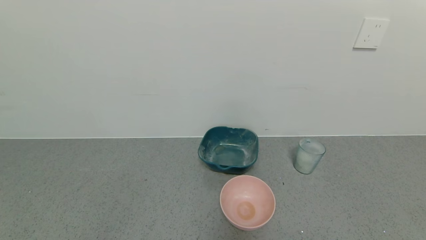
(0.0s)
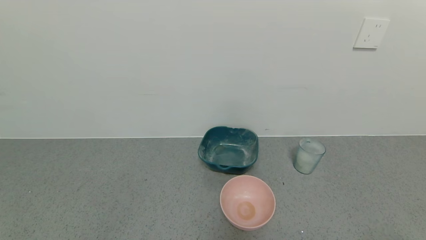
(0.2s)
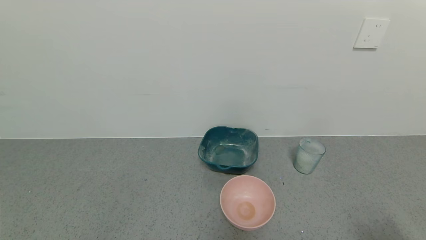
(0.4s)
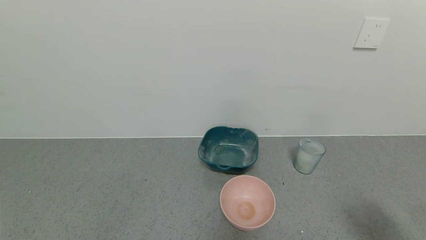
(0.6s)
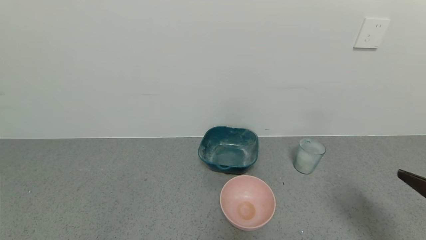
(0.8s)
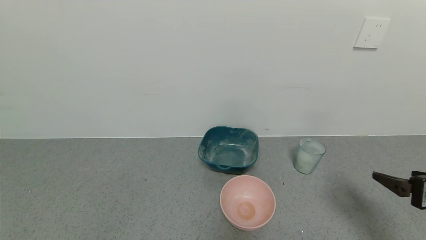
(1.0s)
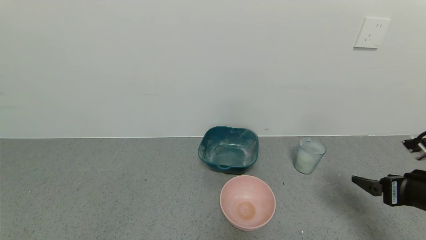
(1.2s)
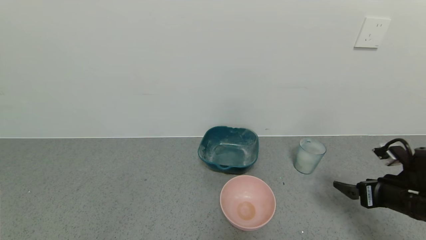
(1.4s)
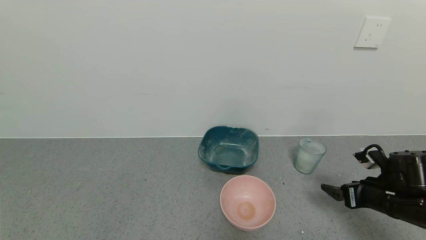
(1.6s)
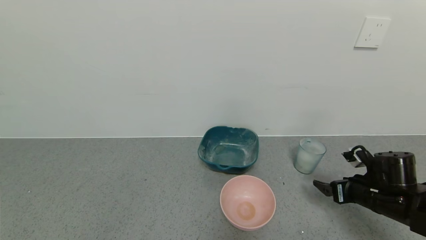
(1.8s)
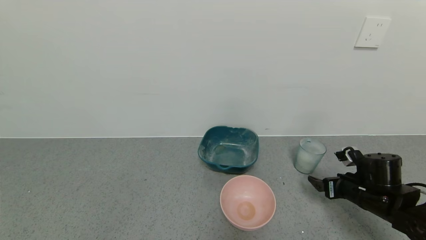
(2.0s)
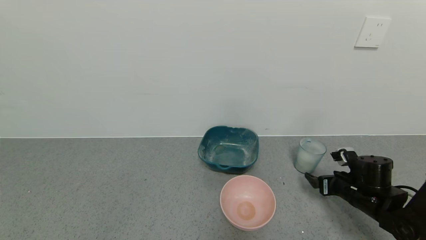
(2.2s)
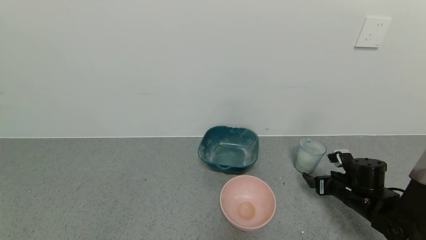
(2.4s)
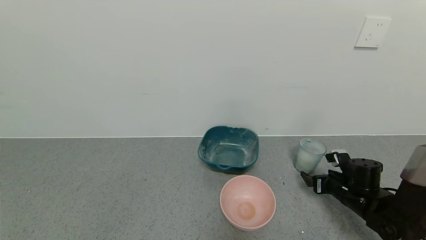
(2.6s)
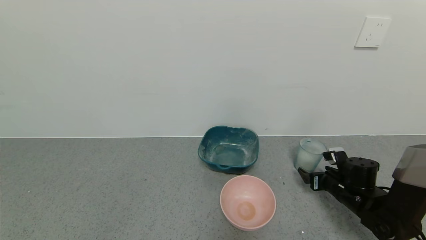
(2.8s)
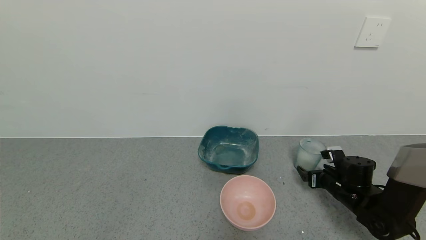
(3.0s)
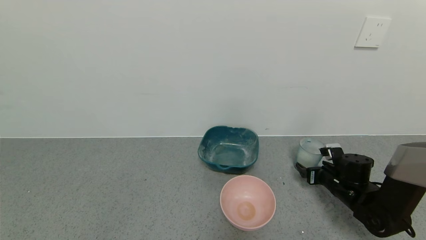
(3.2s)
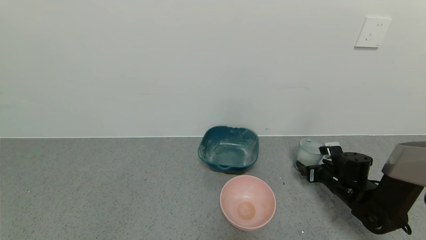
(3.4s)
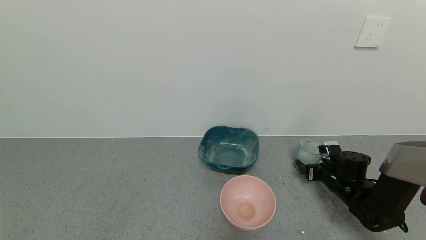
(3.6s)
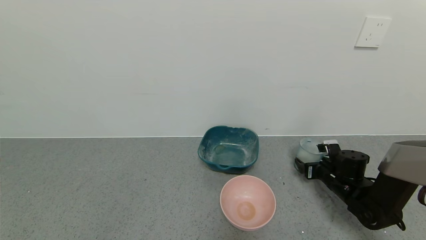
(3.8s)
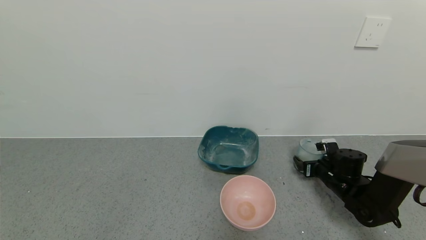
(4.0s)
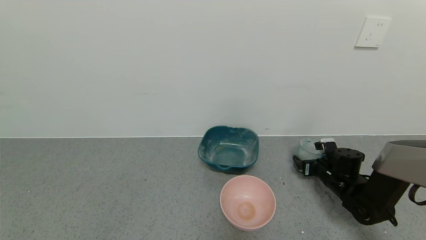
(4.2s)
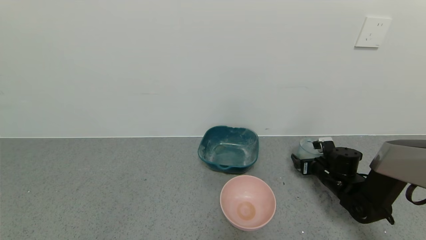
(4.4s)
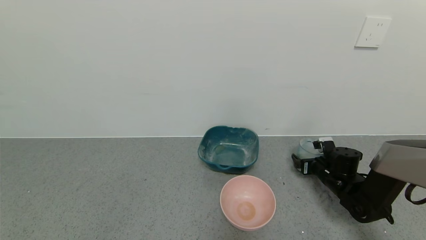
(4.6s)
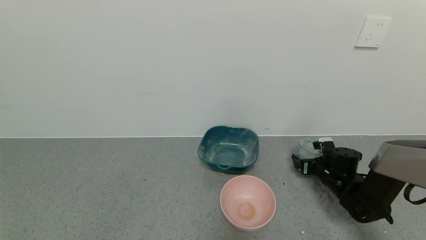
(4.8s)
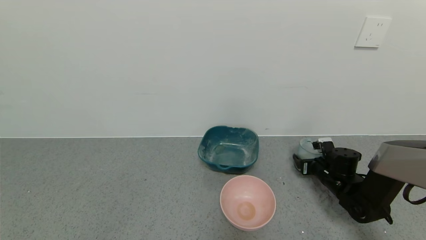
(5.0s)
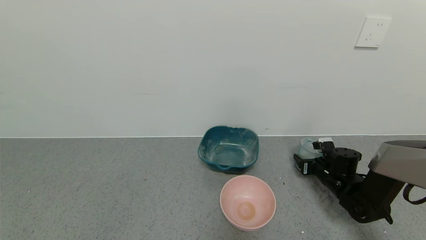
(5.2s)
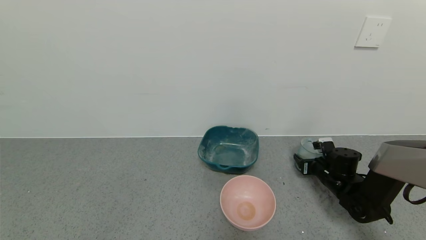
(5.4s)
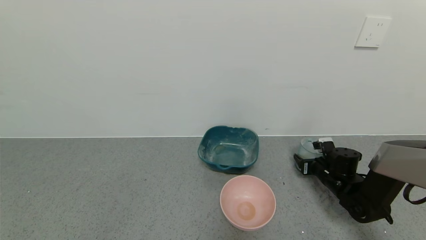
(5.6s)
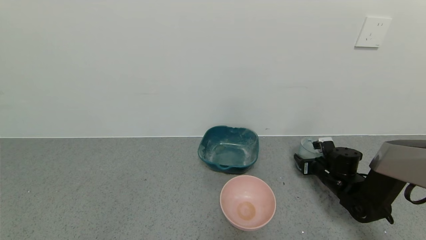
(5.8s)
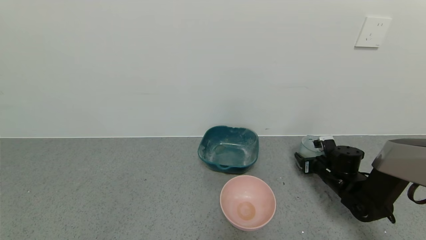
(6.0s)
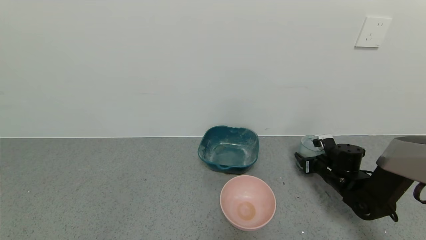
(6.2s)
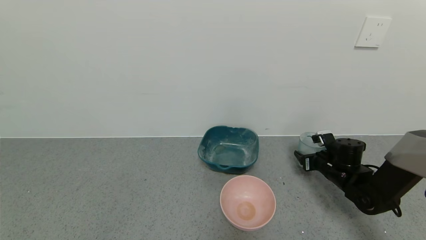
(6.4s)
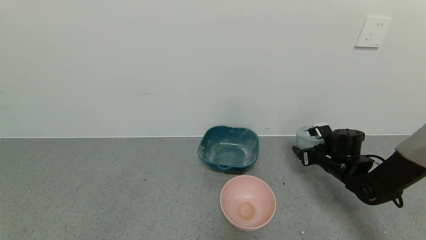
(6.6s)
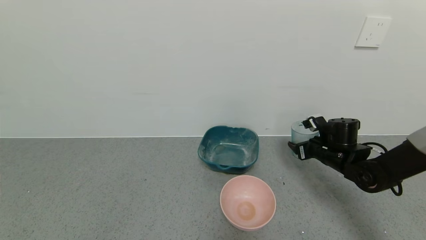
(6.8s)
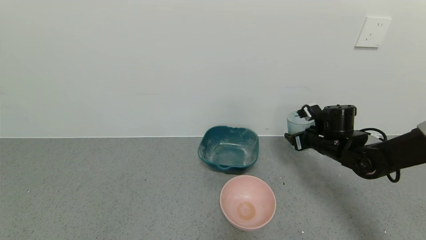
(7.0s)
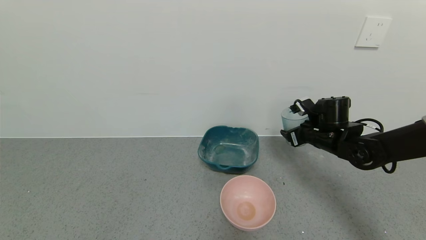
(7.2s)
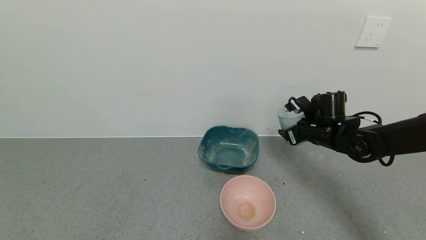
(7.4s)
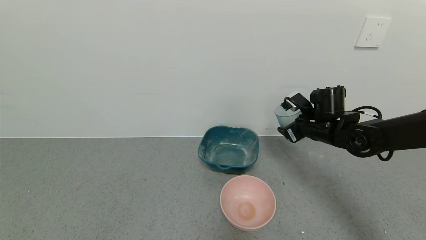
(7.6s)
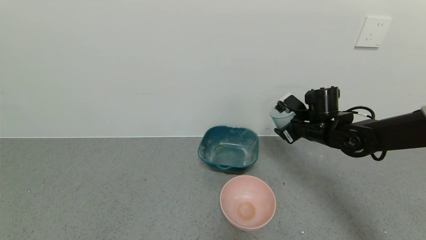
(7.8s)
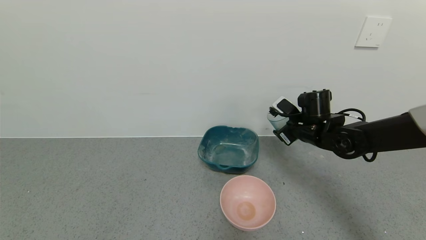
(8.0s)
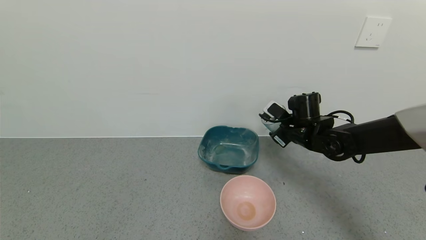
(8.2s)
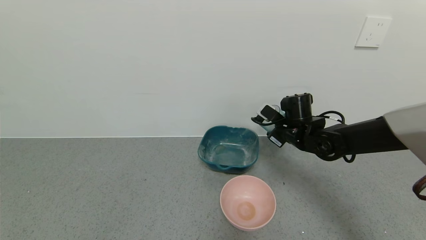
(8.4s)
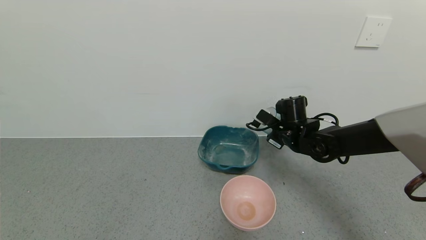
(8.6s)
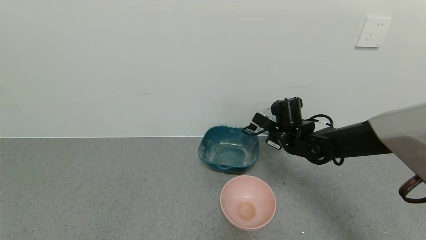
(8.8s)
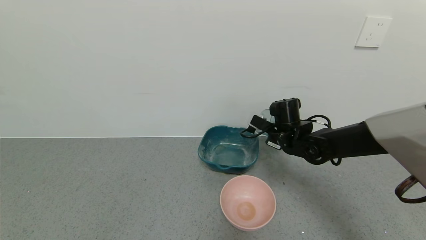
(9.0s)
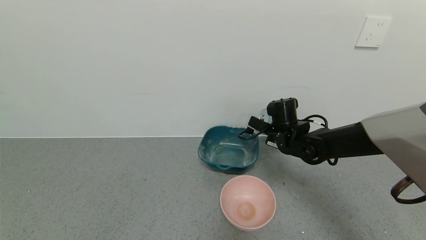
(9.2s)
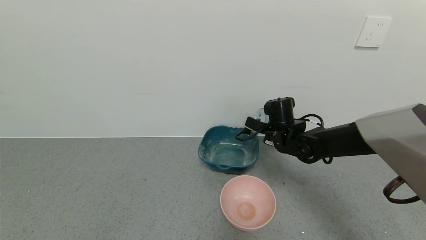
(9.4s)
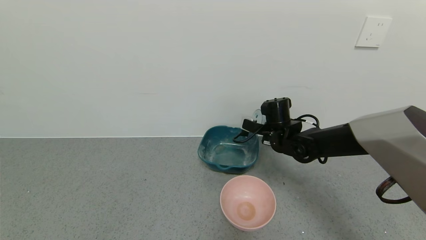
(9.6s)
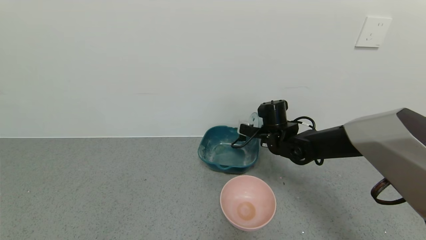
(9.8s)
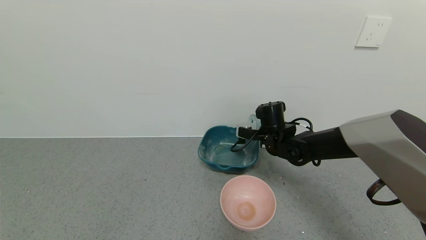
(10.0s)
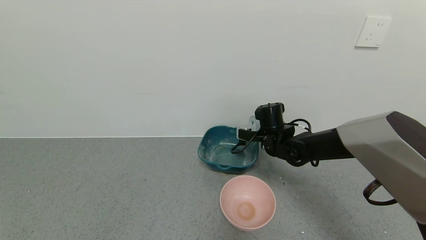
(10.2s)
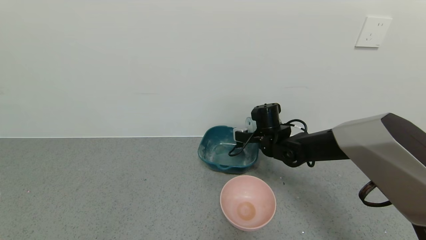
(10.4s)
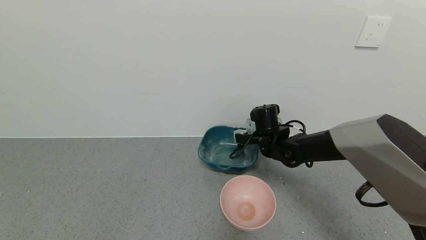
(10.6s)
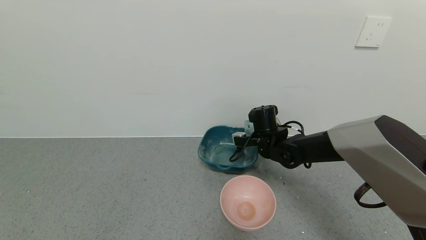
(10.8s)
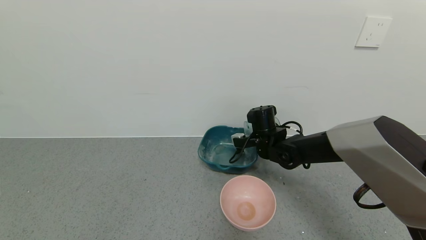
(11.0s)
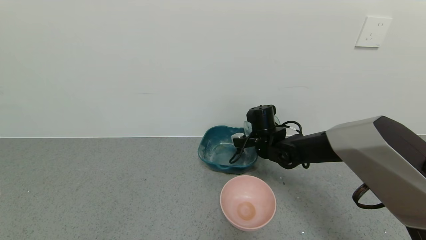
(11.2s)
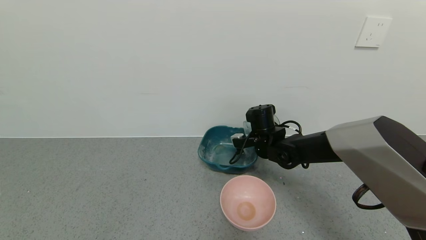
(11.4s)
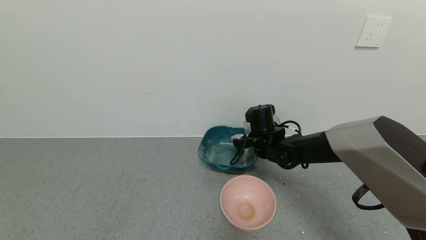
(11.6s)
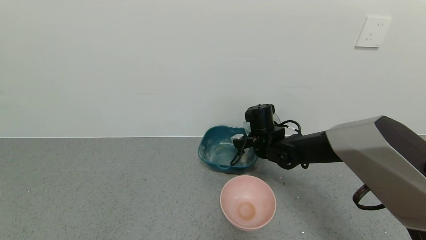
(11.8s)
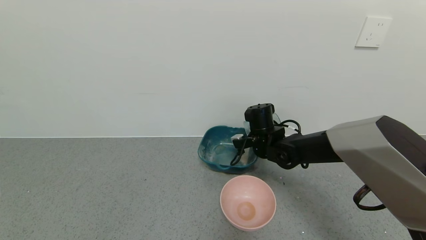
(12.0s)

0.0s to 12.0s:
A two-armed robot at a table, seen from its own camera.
Task of the whole recording: use a gripper to pick up the cup and pour the powder into a bowl or tray.
Step, 0.0s to 5.2s: Grasp the glass of powder with the right gripper.
0.0s to 1.6s: The right gripper goes some 25 cm forward.
1.6s to 3.0s: The right gripper moves forward and downward, roughly 10 cm.
3.0s to 4.4s: The grippers make only small movements.
4.4s to 6.0s: The right gripper closes up.
6.0s to 7.6s: The right gripper travels upward and to the left by approximately 15 cm.
7.6s to 9.0s: The right gripper shifts about 5 cm to the left.
10.4s to 12.0s: The grippers make only small movements.

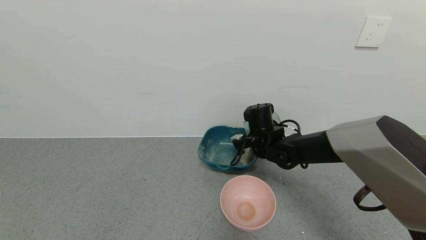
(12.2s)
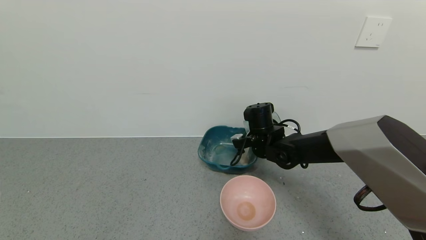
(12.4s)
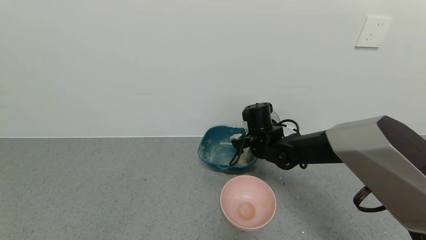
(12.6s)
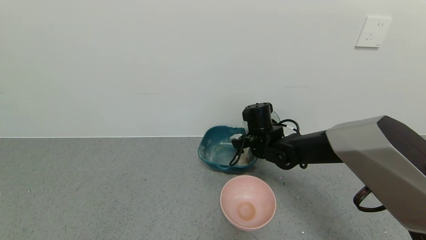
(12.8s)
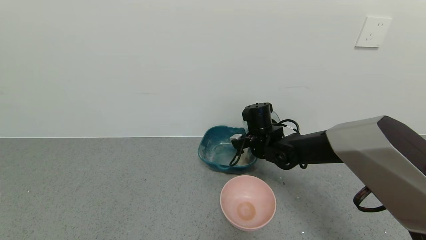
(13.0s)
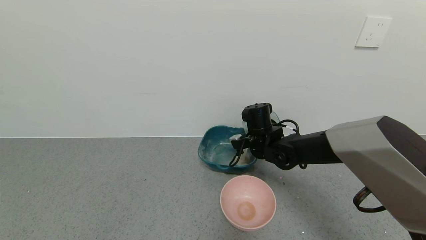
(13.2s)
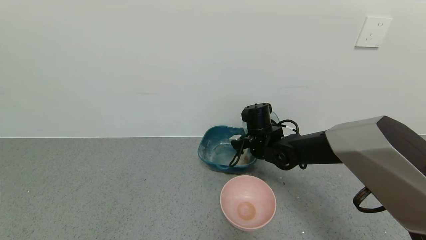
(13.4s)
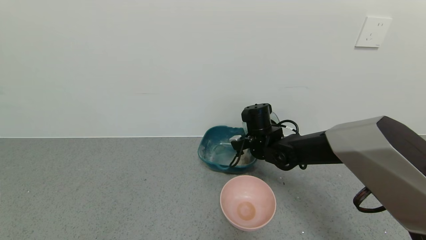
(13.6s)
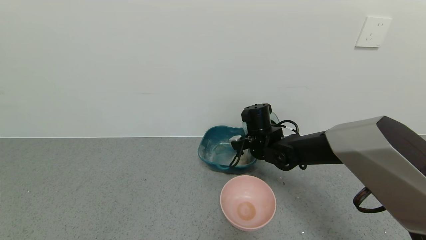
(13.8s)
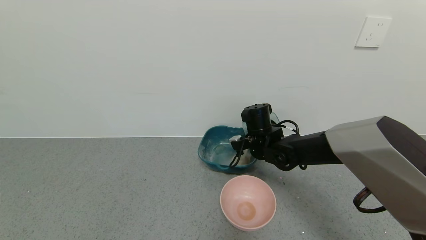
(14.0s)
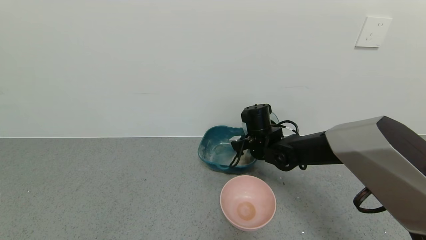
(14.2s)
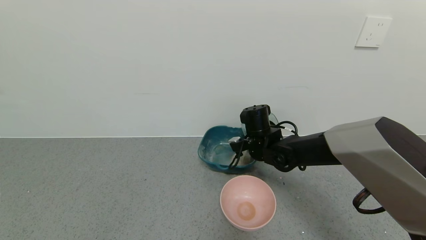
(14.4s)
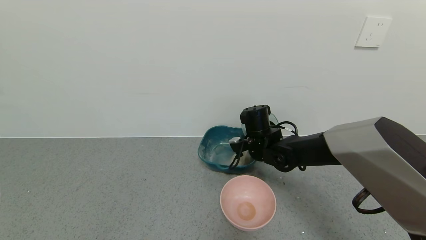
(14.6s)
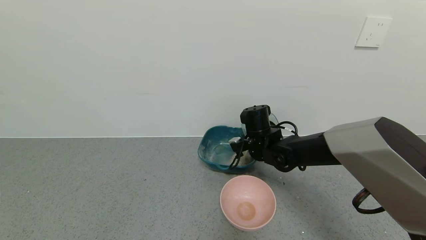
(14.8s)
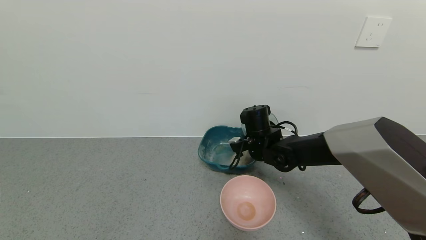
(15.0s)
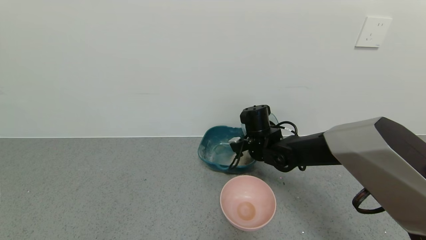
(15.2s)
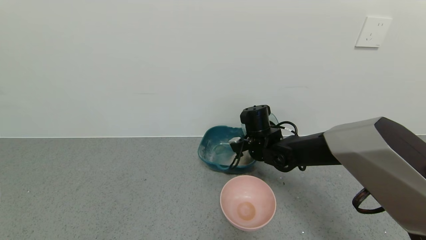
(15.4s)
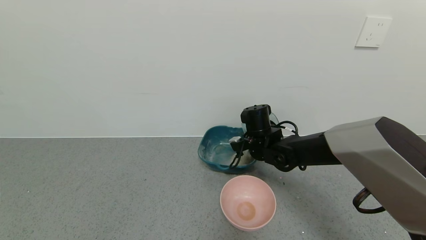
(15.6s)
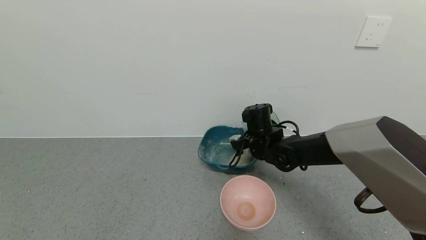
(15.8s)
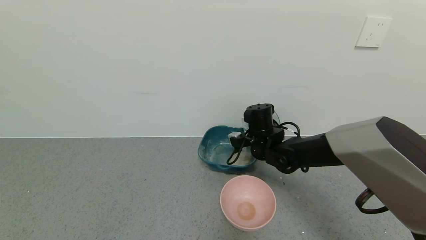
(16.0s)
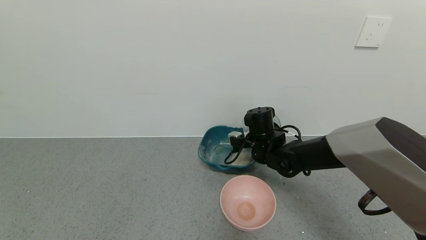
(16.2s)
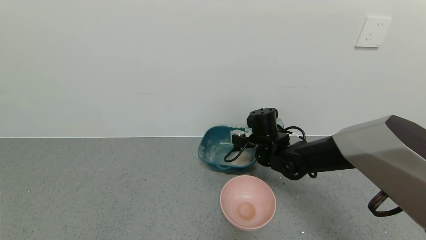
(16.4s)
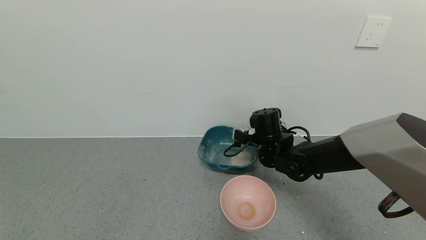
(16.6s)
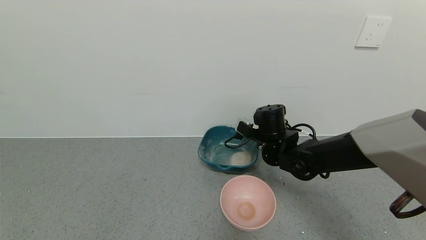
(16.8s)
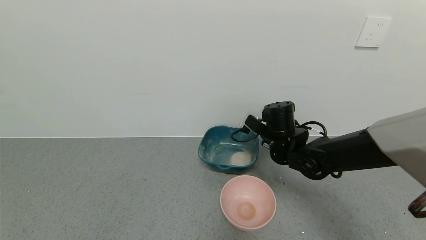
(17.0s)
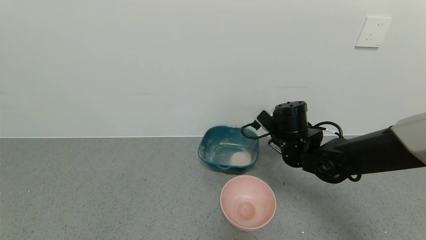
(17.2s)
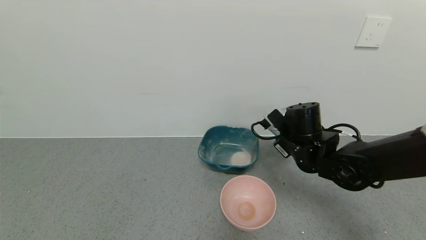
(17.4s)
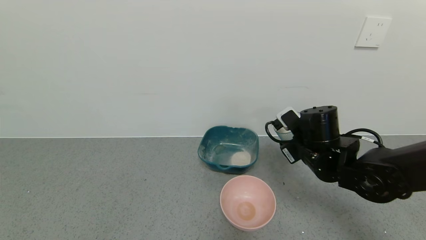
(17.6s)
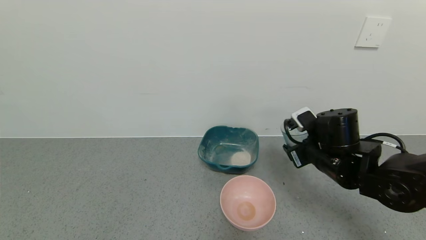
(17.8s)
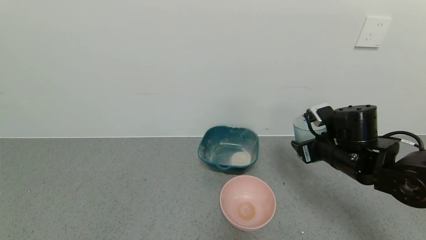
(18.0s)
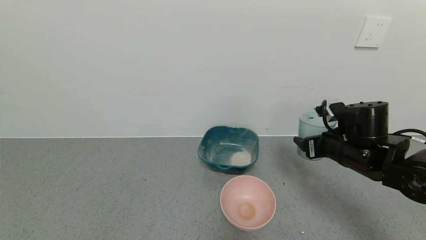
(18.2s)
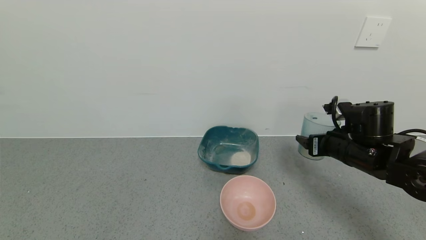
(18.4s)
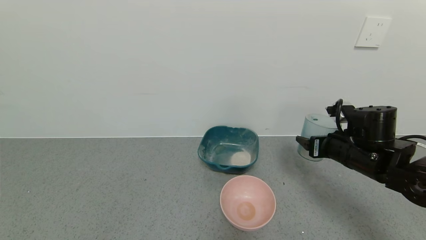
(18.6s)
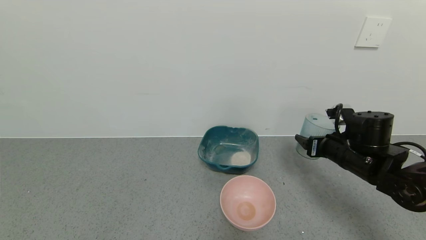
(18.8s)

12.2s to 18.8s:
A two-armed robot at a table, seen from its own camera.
Task of the whole recording: use a gripper to pick up the cup and pour the powder into a bowl or tray.
Step, 12.2s to 16.2s: Pour the powder into the pink bowl with the right gripper.
12.2s to 15.4s: Both grippers stay about where they are.
15.4s to 17.2s: The right gripper moves to the right and backward, roughly 10 cm.
17.2s to 18.8s: The right gripper is displaced to the right by roughly 10 cm.
